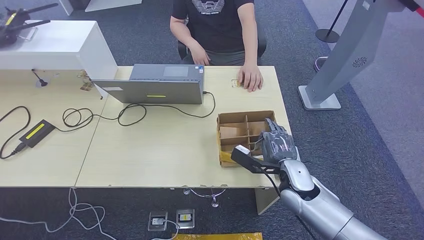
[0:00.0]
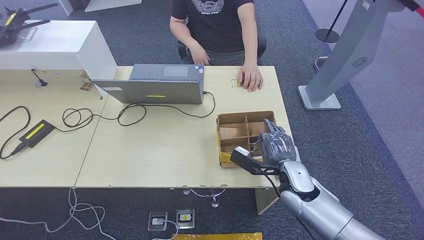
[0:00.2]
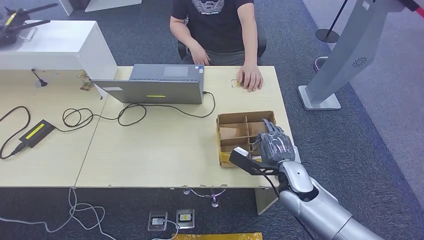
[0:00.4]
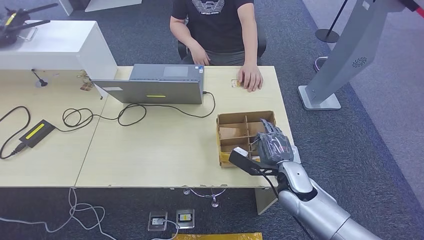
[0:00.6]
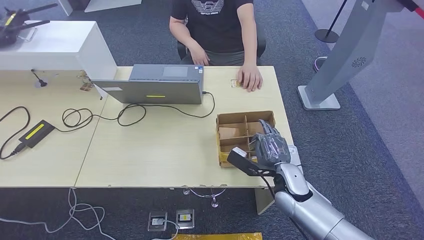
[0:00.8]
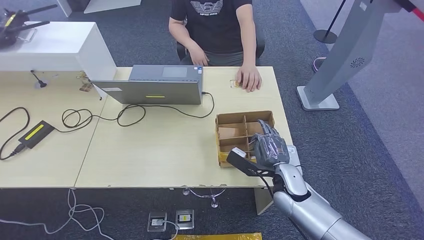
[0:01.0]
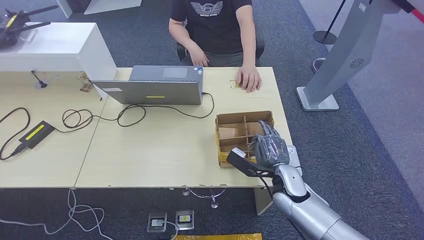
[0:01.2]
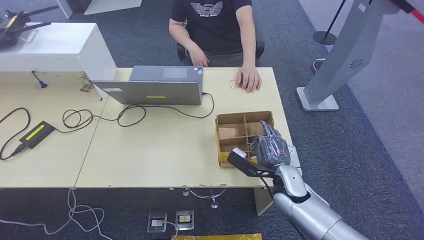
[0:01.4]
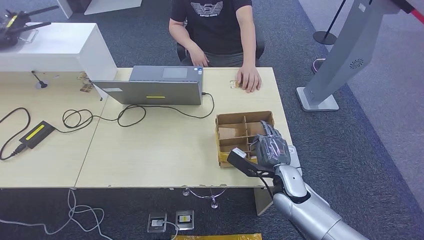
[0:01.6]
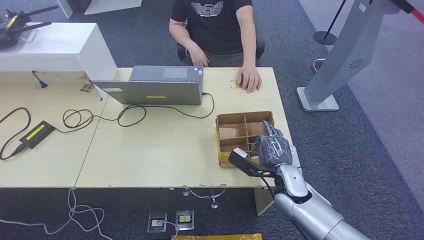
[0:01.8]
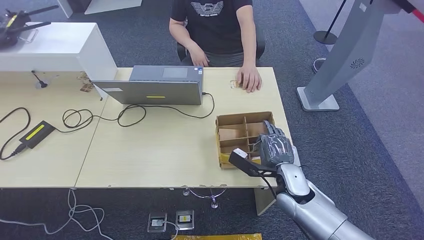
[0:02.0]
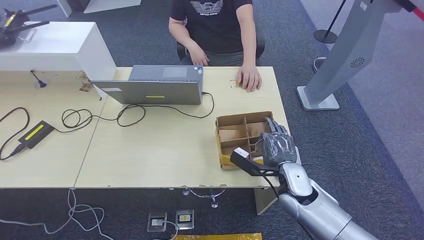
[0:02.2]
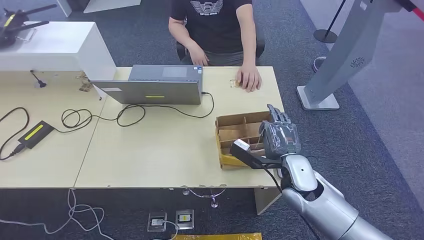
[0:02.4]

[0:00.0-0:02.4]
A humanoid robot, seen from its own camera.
Step, 0:00.4 to 0:02.2: Hand the room key to the person.
0:00.0 to 0:01.2: The hands stay close to where they were, moving slightly.
0:01.2 to 0:02.4: The right hand is displaced upward by some 5 cm.
